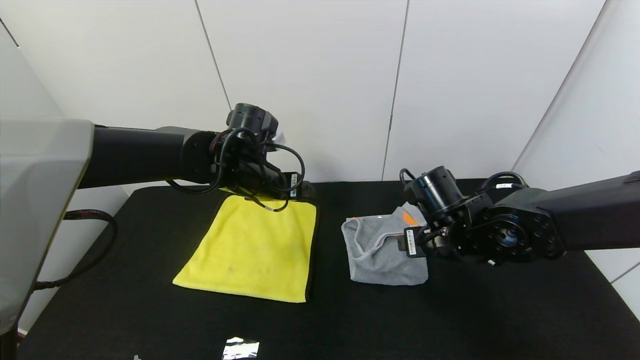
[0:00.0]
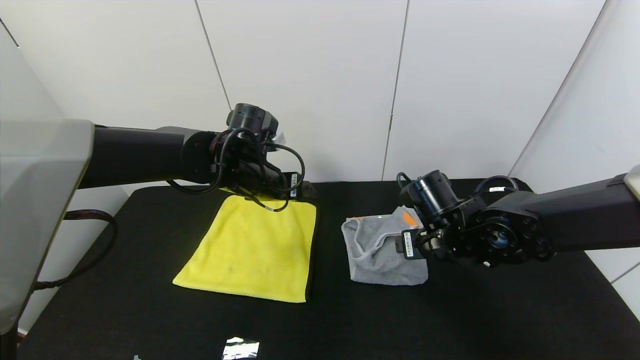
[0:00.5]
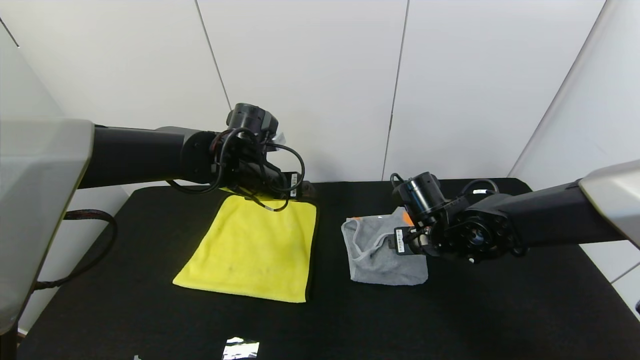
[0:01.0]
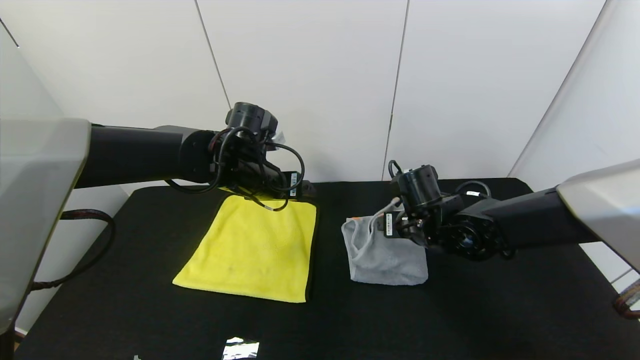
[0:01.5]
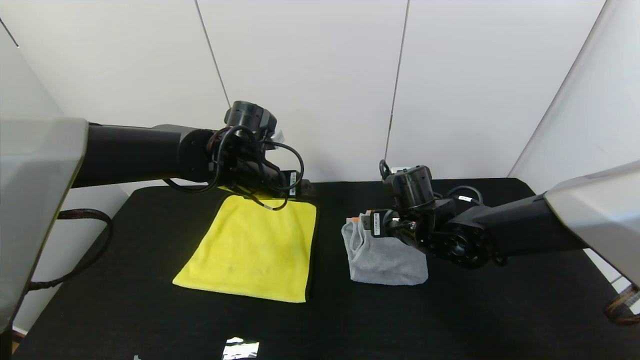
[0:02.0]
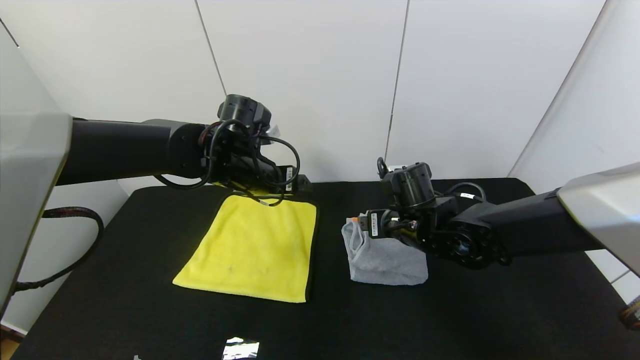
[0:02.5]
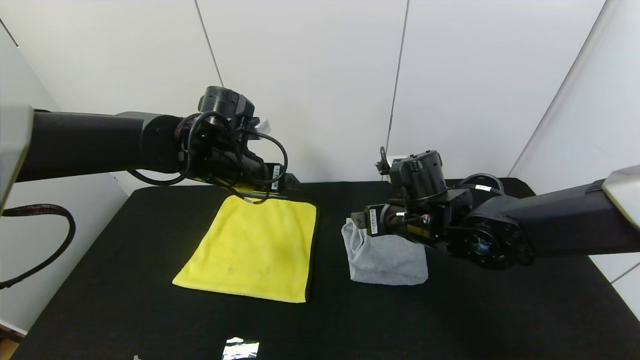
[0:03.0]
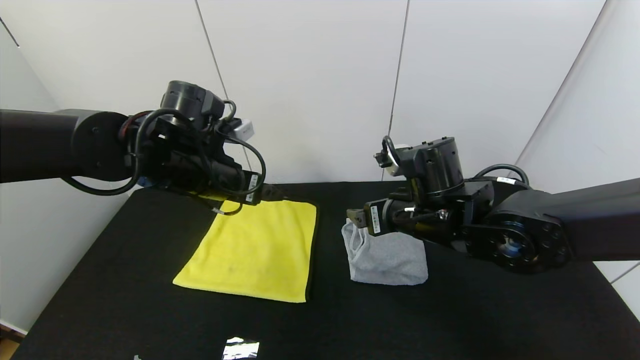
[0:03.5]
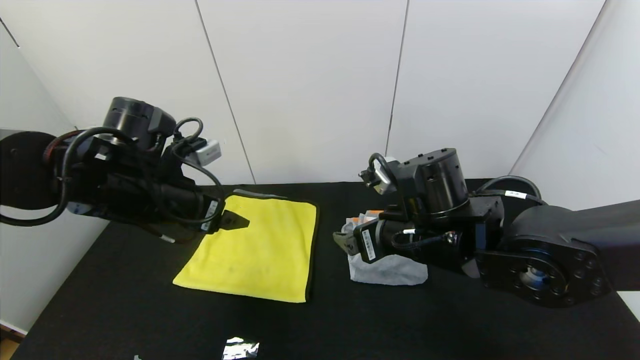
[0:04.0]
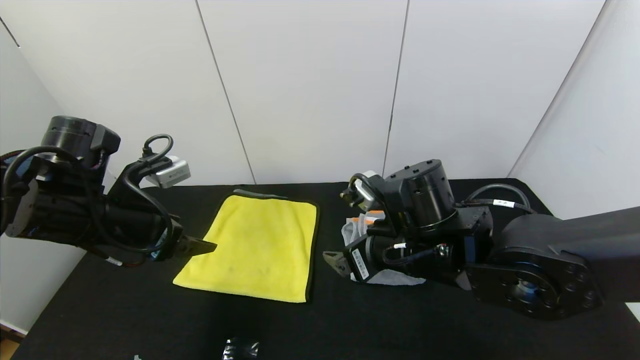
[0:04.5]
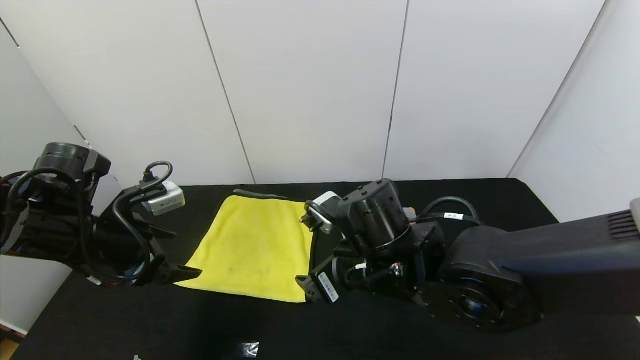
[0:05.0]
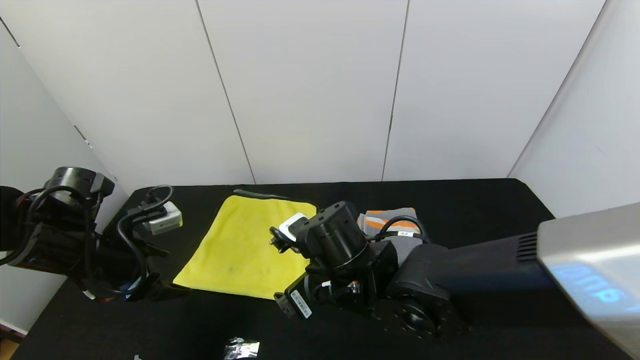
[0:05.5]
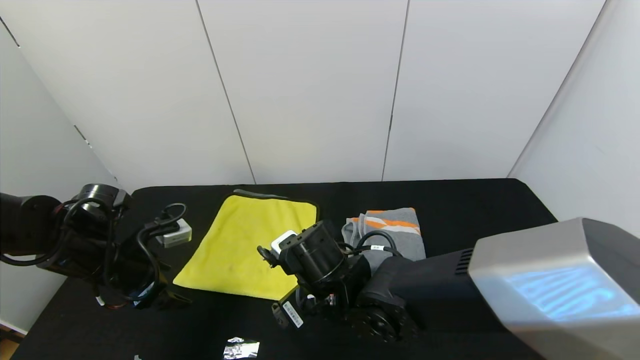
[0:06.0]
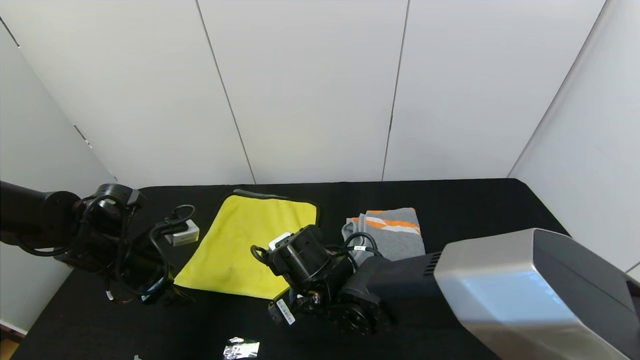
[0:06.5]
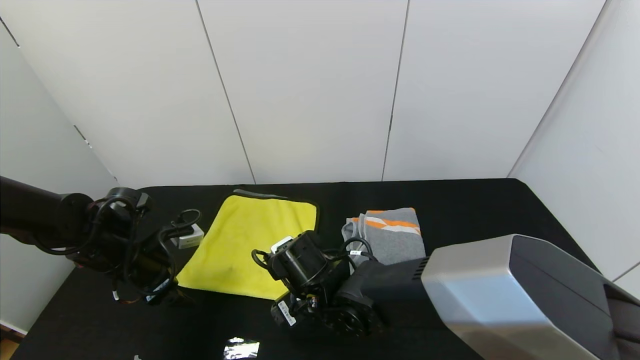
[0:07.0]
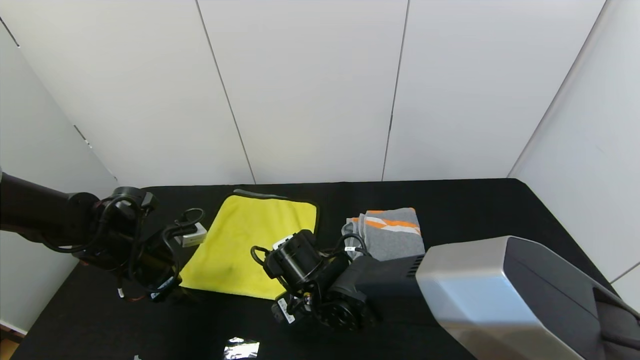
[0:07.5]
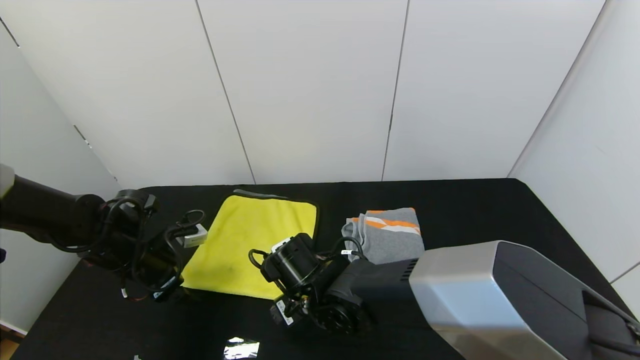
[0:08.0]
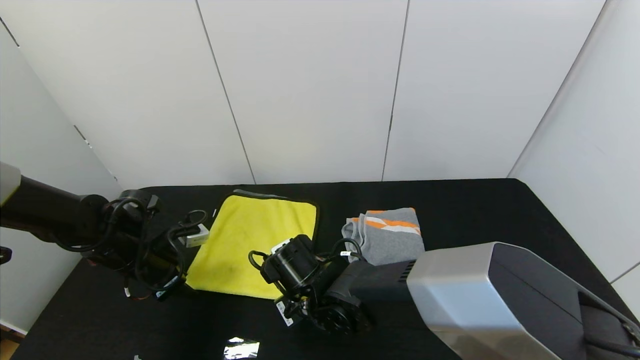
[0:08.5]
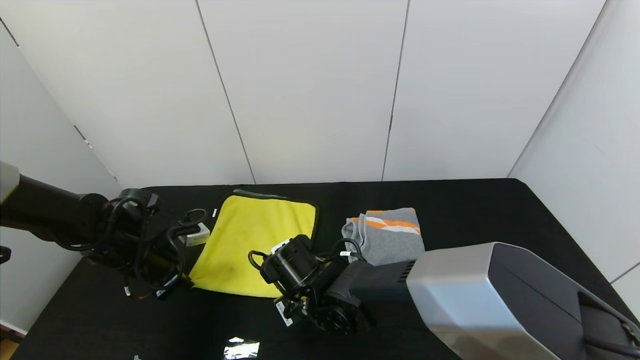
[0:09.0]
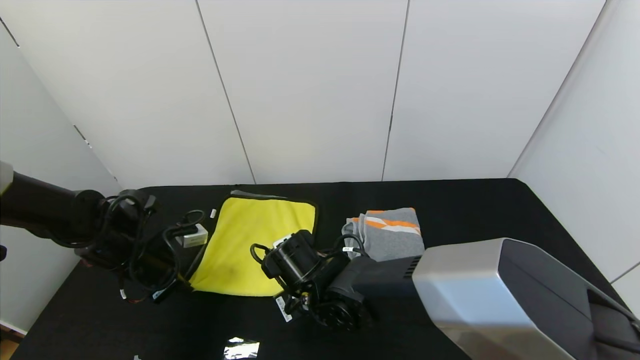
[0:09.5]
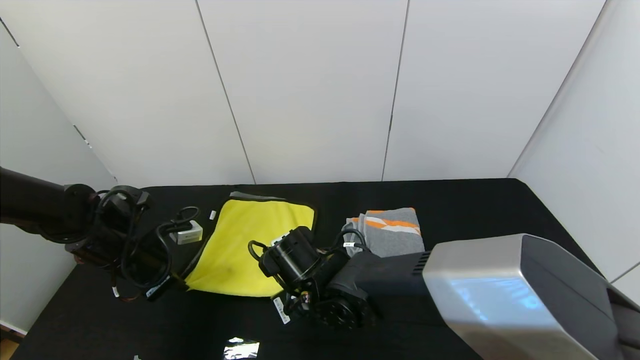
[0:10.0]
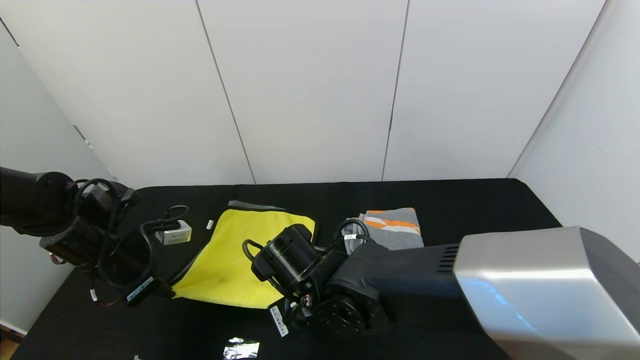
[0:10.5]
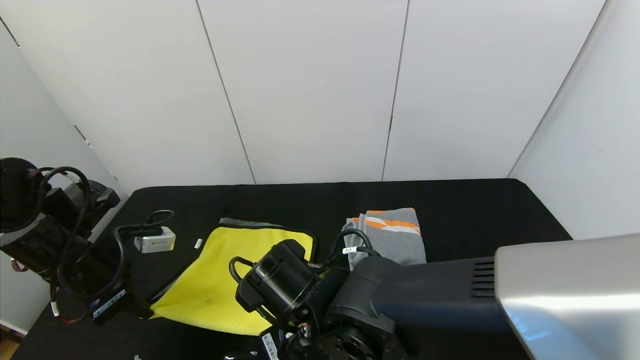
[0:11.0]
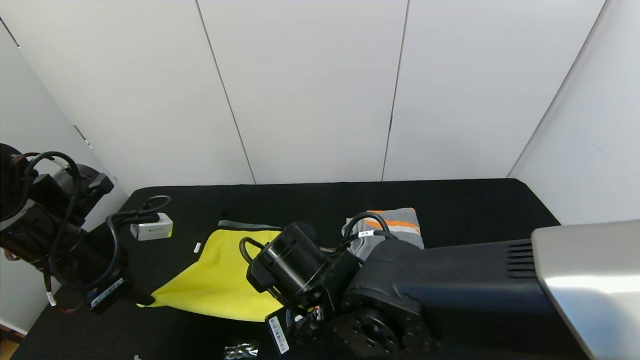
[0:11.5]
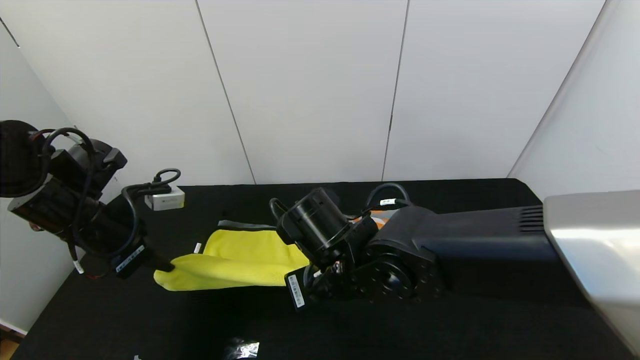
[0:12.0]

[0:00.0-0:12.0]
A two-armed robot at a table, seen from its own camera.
Task of the whole recording: Use the gripper to fold the yellow towel and grey towel in half twice,then put the yellow towel on the grey towel.
Step, 0:00.0 to 0:02.5: Fold the gray towel from right to left with right gripper.
0:00.0 to 0:02.0: The right gripper moves roughly 5 cm.
0:02.0 to 0:04.0: The right gripper moves backward and upward, roughly 10 cm; the left gripper travels backward and to the left by some 15 cm.
0:04.0 to 0:06.0: The two grippers go approximately 15 cm to the left and downward.
0:06.0 to 0:08.0: The left gripper changes place by roughly 5 cm.
0:08.0 to 0:10.0: The left gripper closes its fingers. The right gripper closes.
0:10.0 to 0:12.0: Both grippers move upward, roughly 10 cm.

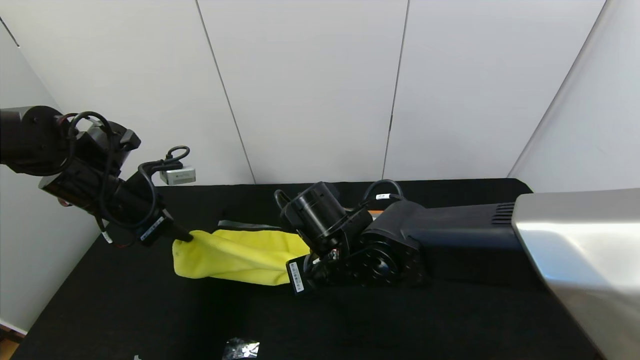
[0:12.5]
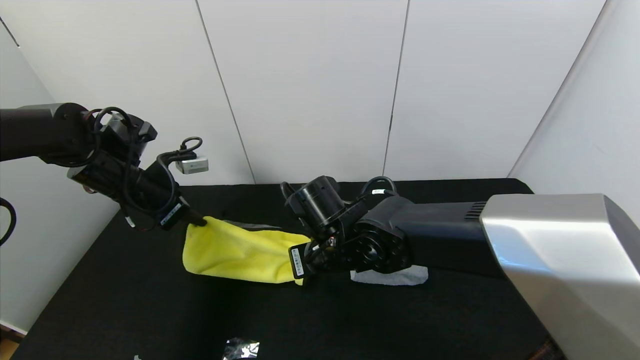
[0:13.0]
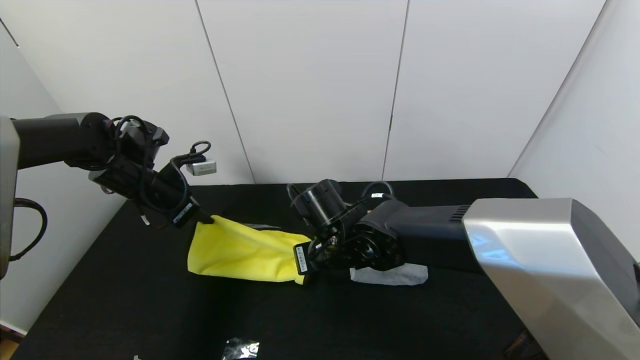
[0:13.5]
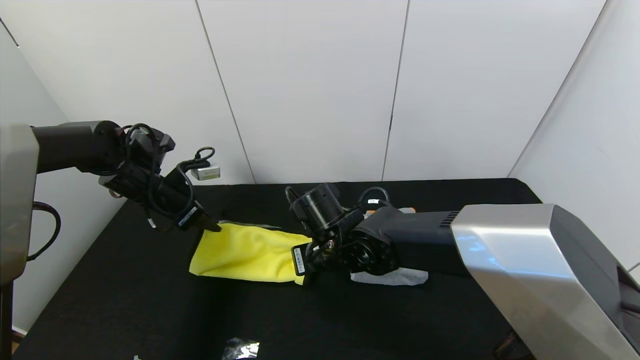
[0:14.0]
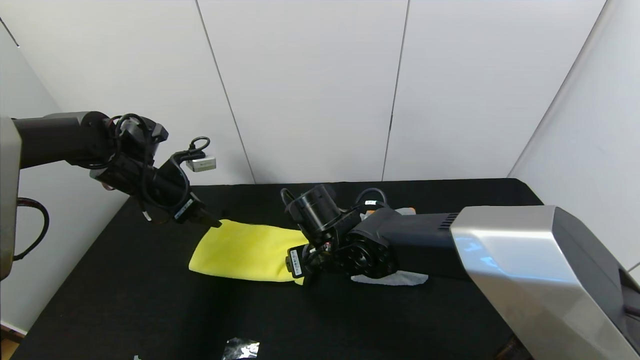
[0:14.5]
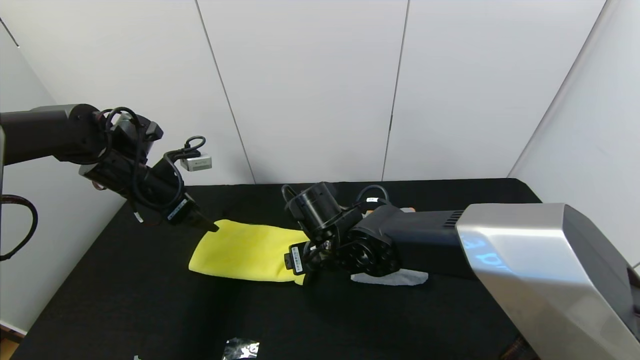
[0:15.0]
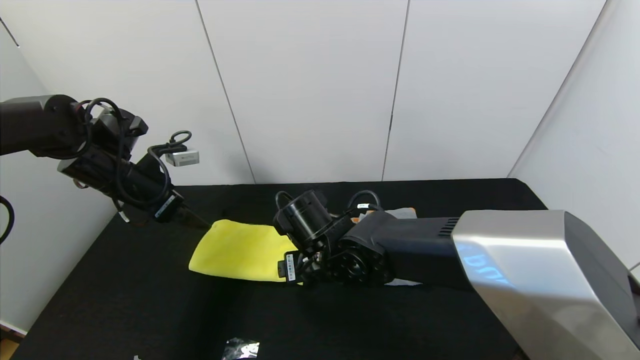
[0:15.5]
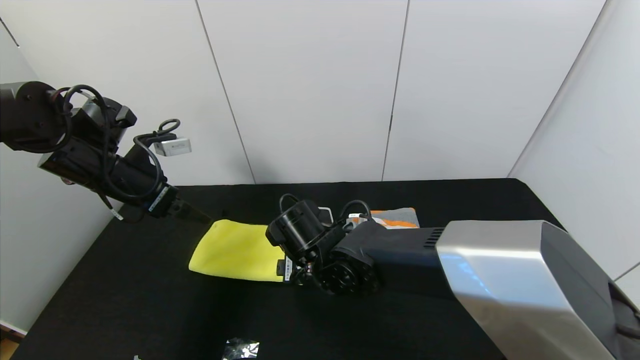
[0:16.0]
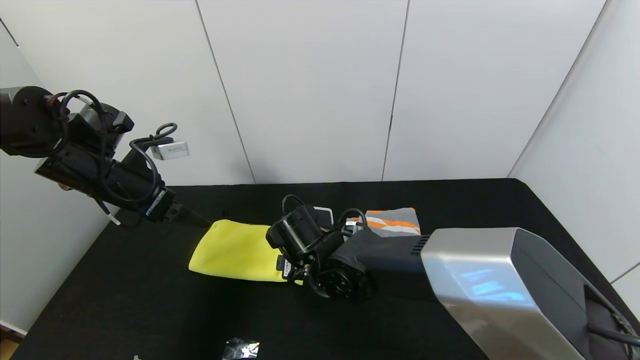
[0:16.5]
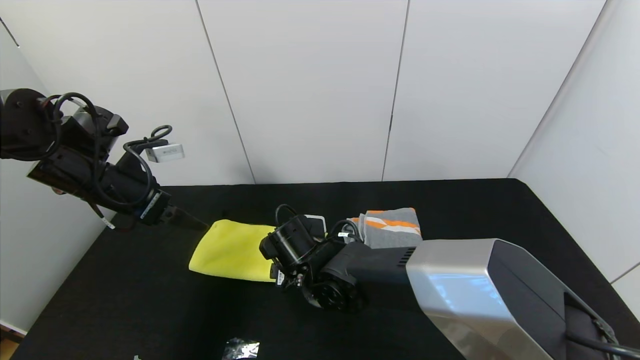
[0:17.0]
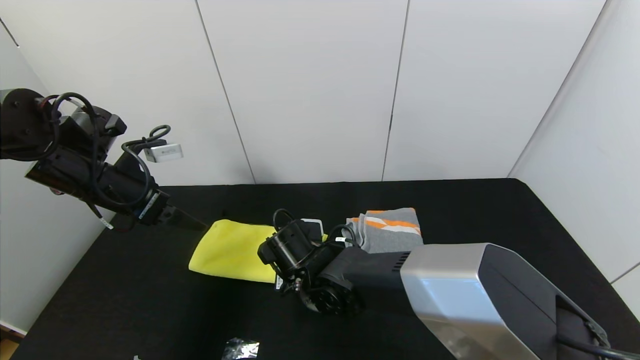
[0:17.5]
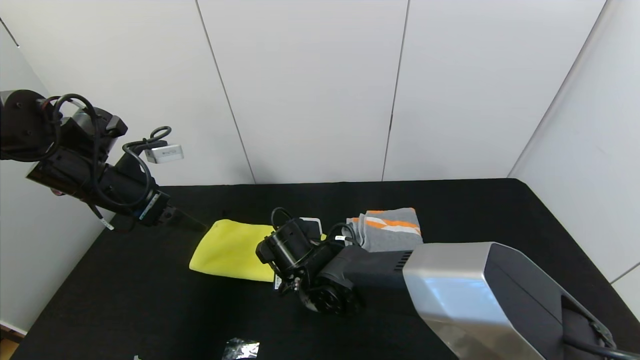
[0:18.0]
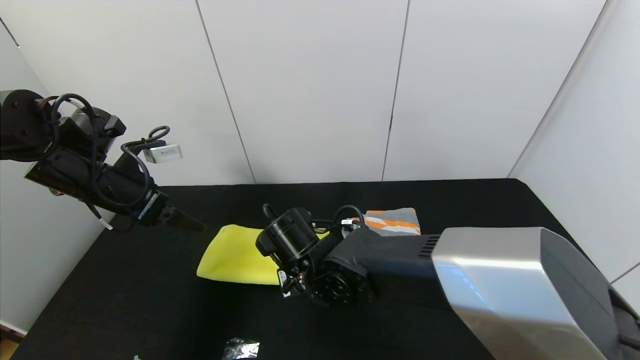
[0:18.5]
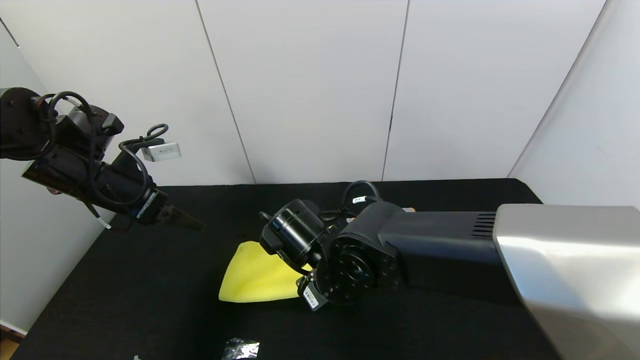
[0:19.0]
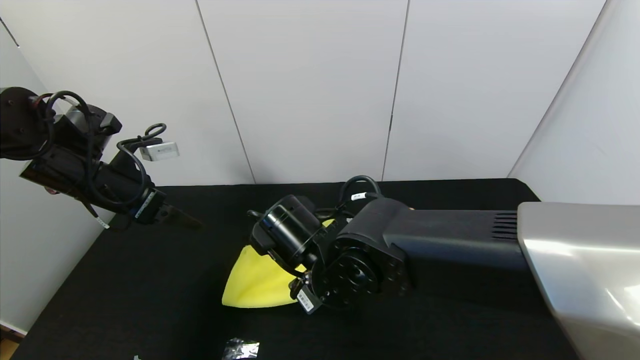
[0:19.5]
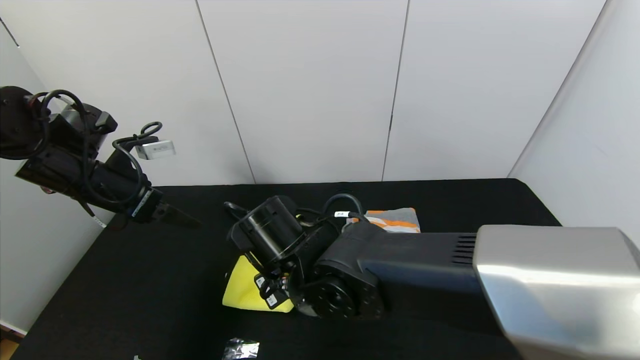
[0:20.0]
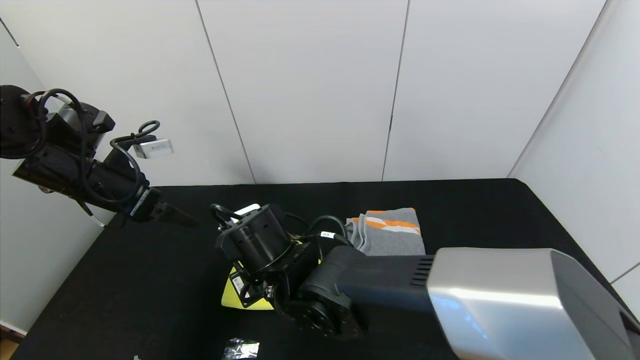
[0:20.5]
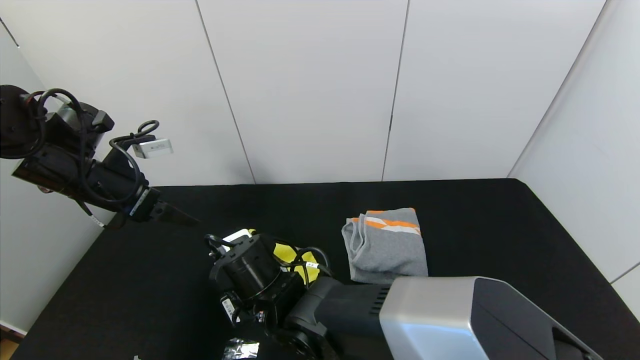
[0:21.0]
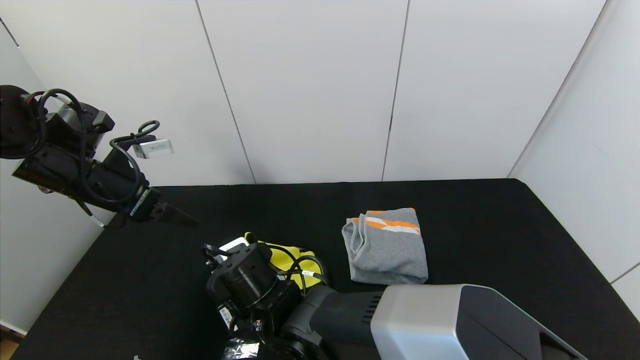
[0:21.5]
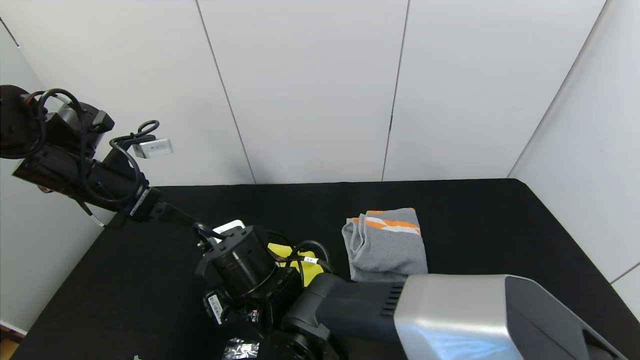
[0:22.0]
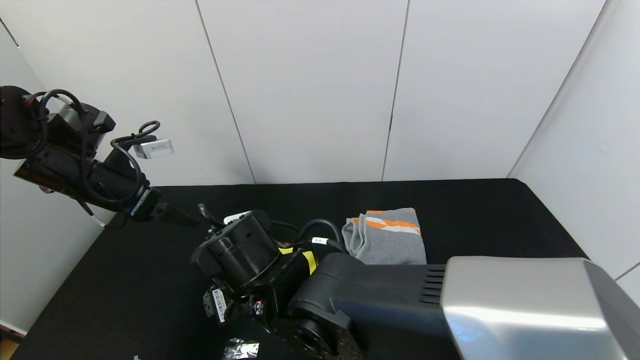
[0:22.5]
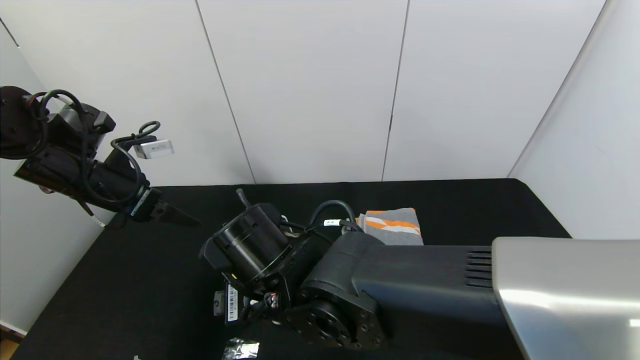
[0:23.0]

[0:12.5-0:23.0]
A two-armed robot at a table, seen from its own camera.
Task of the whole recording: Use the gripper to fold the yellow towel and grey towel in half twice,then put the yellow towel on the grey towel.
Step, 0:12.5 to 0:14.5: Fold the yellow towel upwards with the left gripper.
0:12.5 to 0:14.5: The right gripper moves approximately 5 cm, and opens; the left gripper shifts roughly 5 cm forward, and opens.
0:14.5 to 0:16.5: The left gripper shifts about 5 cm backward.
0:16.5 to 0:19.0: The right gripper moves backward and upward, about 5 cm, and closes up.
0:19.0 to 0:21.0: The right gripper goes roughly 10 cm to the left and downward.
0:21.0 to 0:23.0: The right gripper heads upward, covering approximately 5 cm, and opens.
